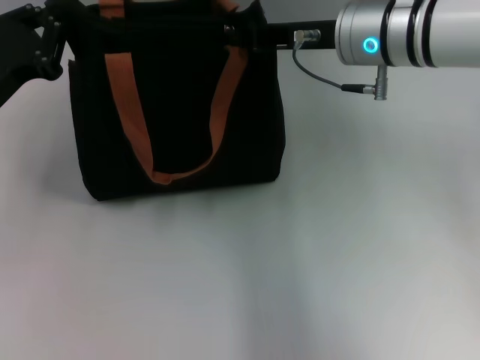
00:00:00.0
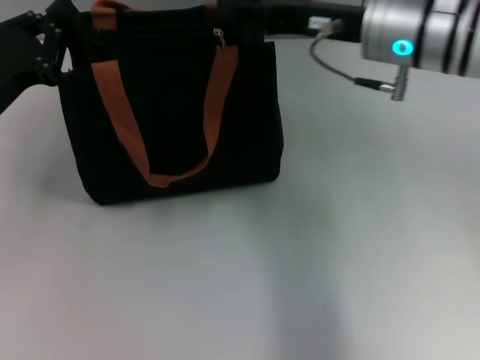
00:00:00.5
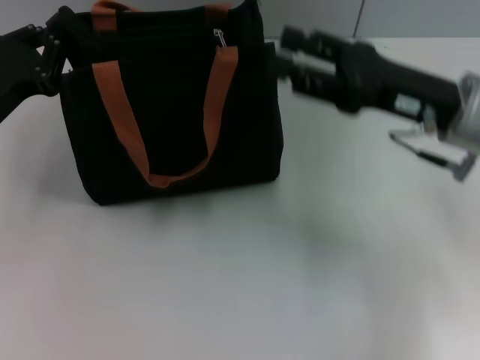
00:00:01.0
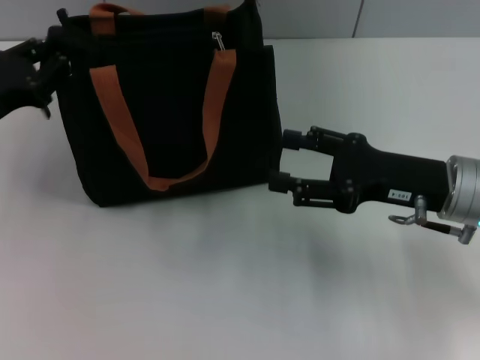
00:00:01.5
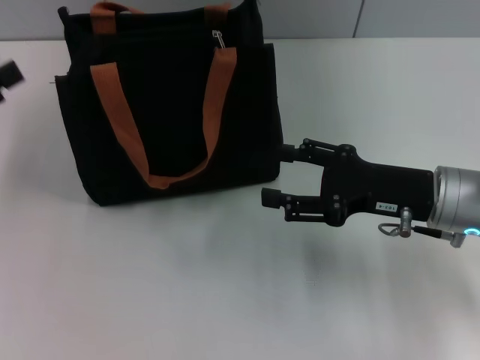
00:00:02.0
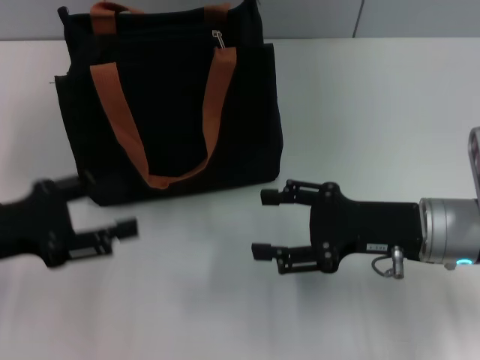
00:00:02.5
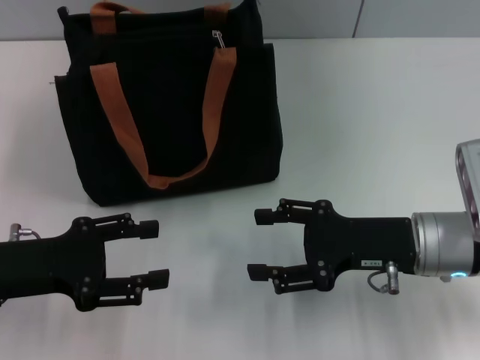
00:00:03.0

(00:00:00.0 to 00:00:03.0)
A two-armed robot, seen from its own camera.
Step, 00:00:00.5 - 00:00:01.5: Grab the zipper with your left hand.
00:00:00.0 - 00:00:01.5: The right gripper travels backward, to the right and downward by roughly 15 cm, and opens its fingers.
00:00:01.5 - 00:00:03.0: The left gripper moves backward, approximately 10 cm, and opens up.

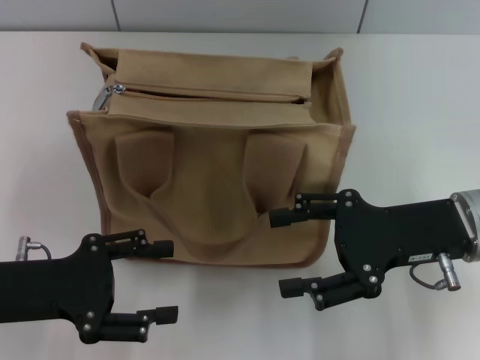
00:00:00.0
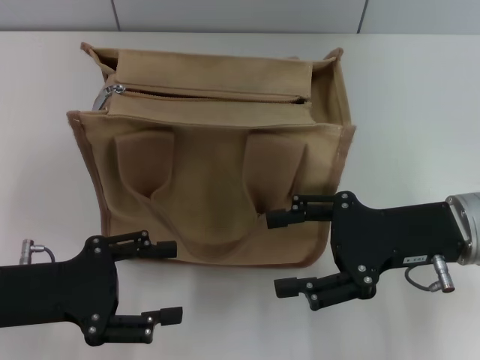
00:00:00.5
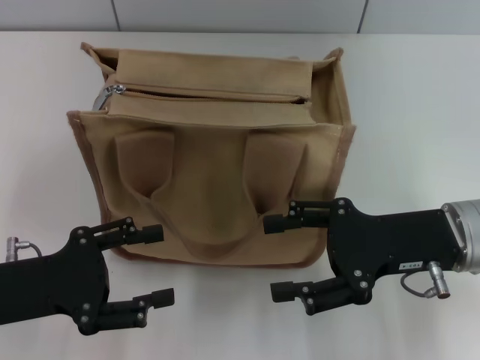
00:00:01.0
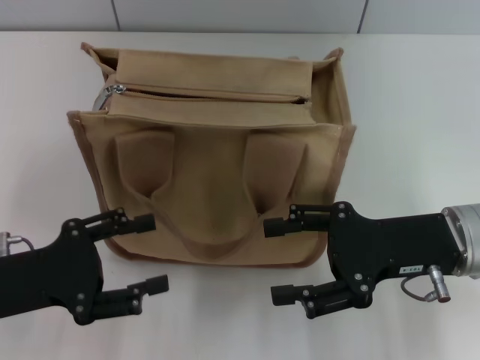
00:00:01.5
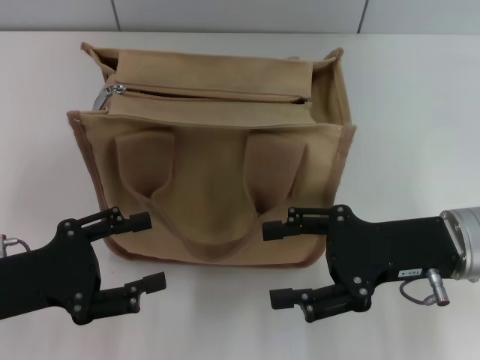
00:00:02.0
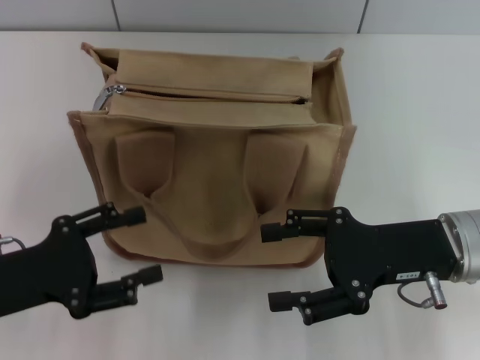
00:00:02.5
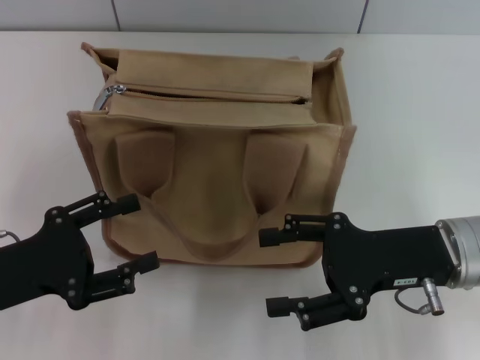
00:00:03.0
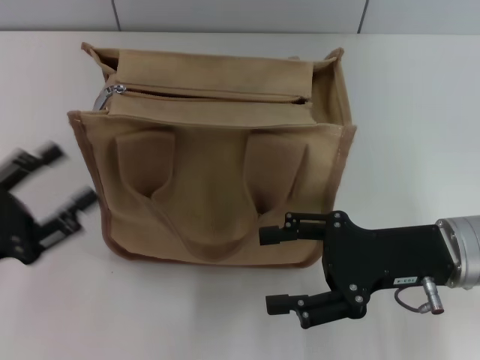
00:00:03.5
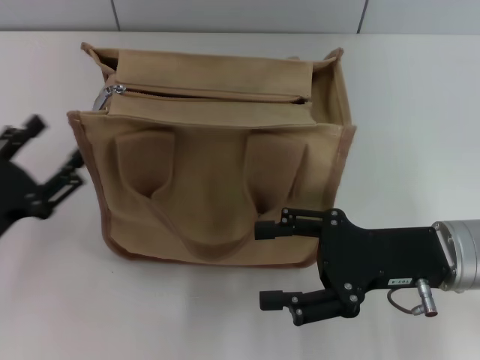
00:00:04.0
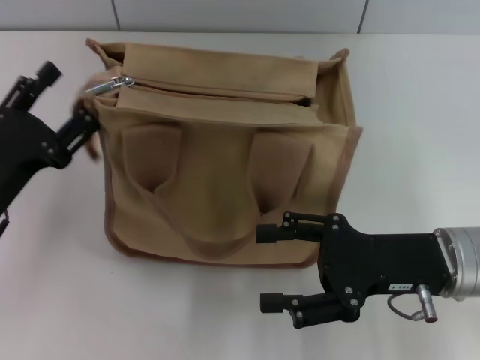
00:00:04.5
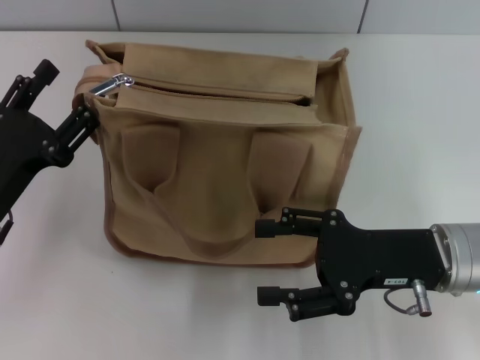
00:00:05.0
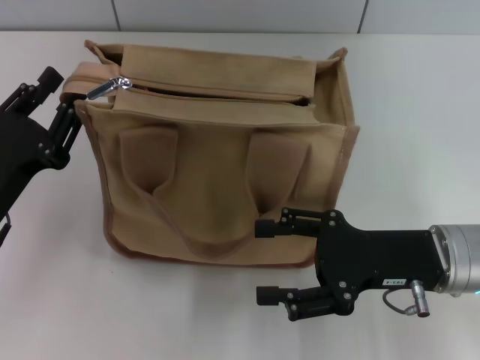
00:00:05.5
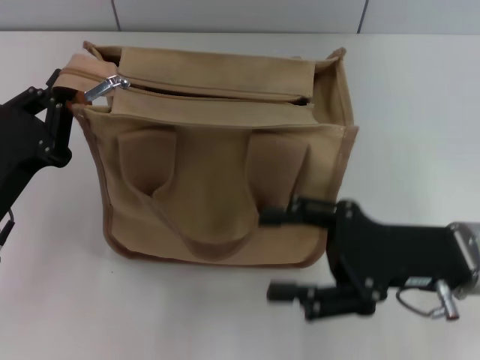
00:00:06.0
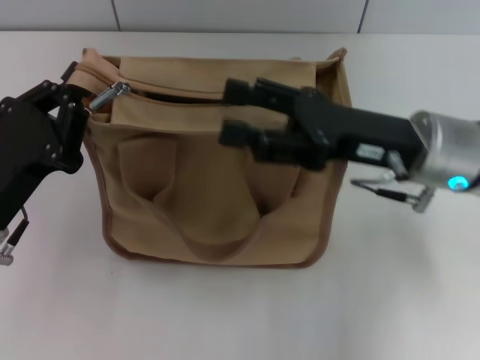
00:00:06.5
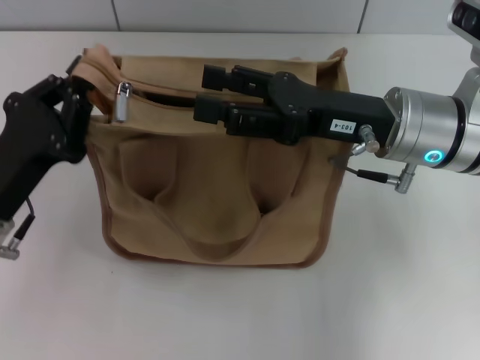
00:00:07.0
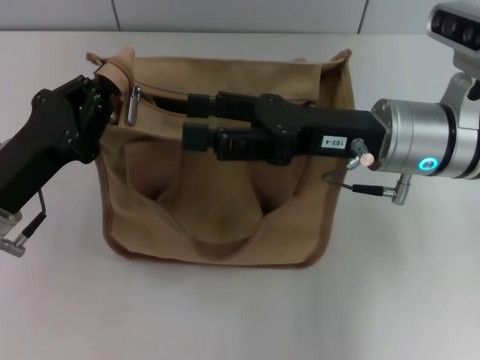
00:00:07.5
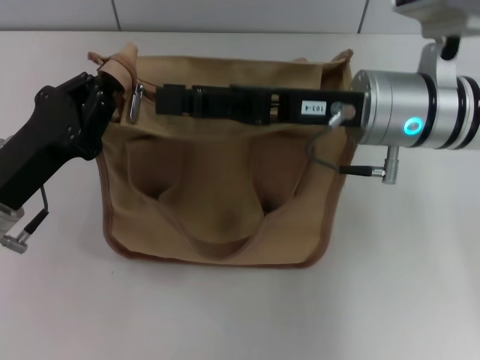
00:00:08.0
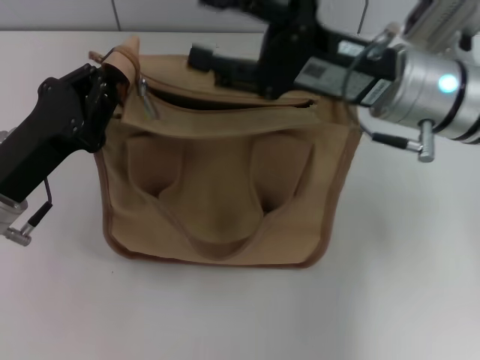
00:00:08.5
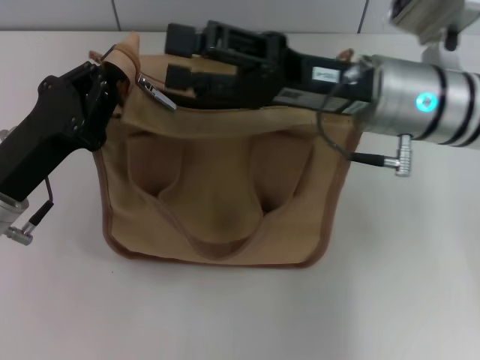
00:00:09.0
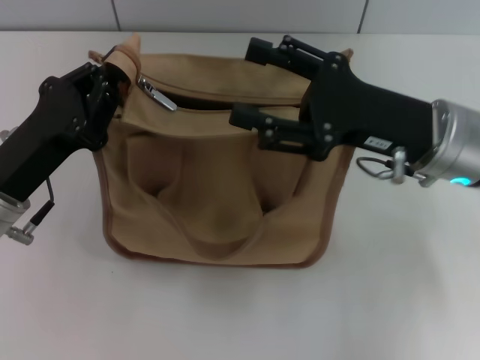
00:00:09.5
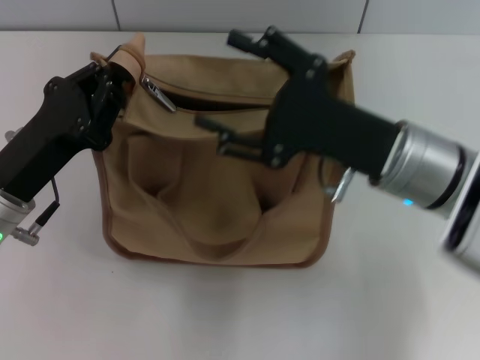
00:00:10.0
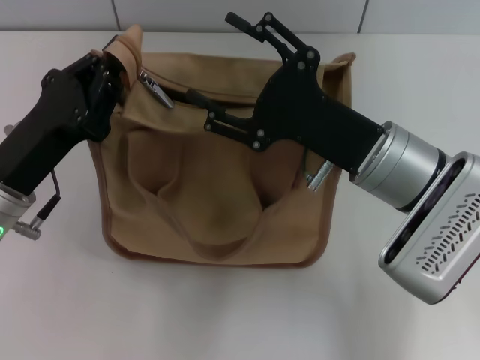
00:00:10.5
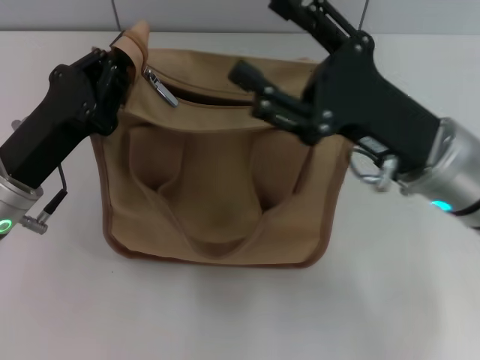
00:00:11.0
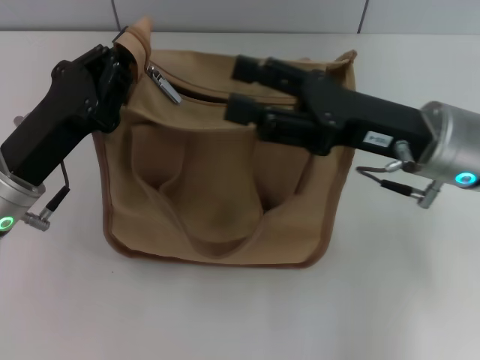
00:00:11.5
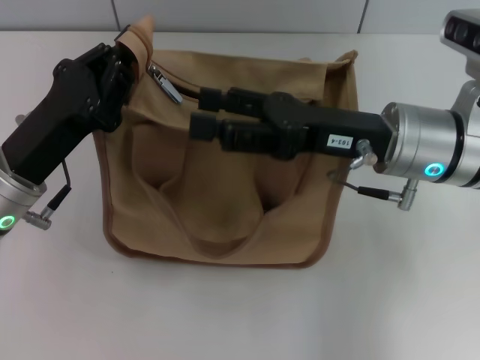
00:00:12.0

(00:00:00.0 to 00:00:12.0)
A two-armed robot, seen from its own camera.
00:00:00.0 - 00:00:02.0: The grippers stay close to where they were, moving slightly.
00:00:04.0 - 00:00:06.0: The left gripper moves some 5 cm, and closes its fingers.
00:00:06.0 - 00:00:08.0: The right gripper goes roughly 15 cm forward, to the left and upward.
00:00:08.0 - 00:00:10.0: The right gripper shifts by approximately 5 cm.

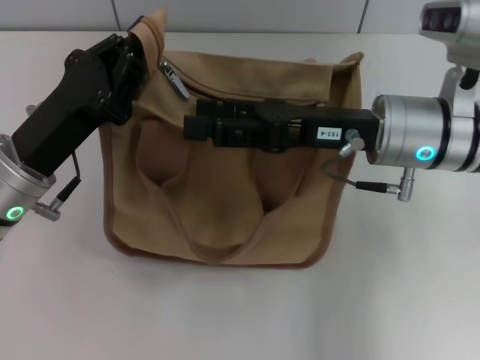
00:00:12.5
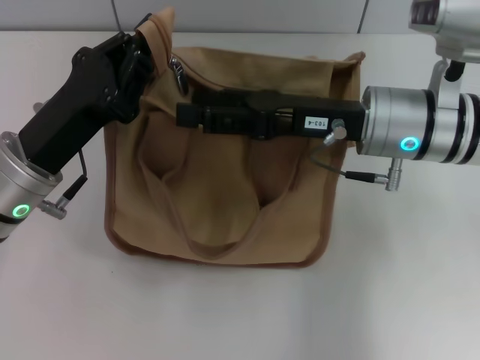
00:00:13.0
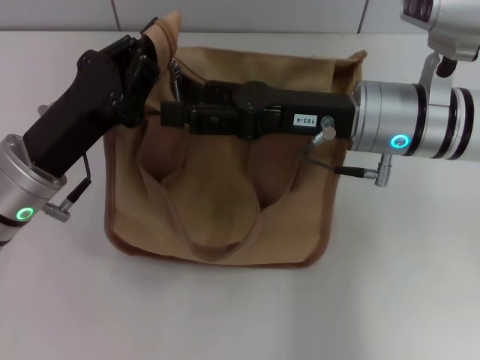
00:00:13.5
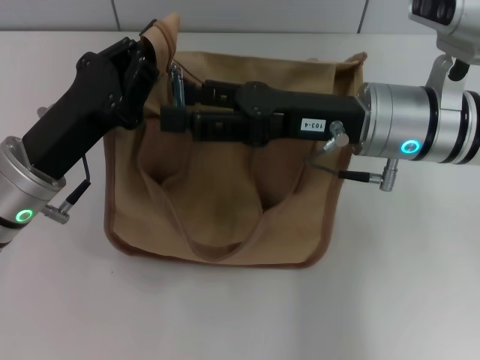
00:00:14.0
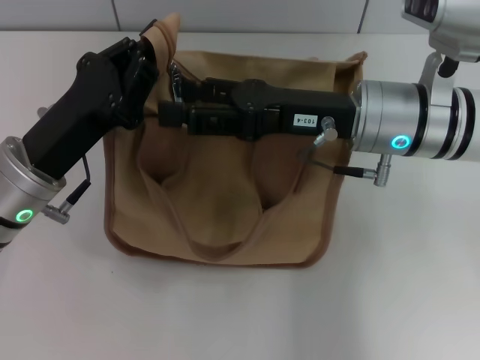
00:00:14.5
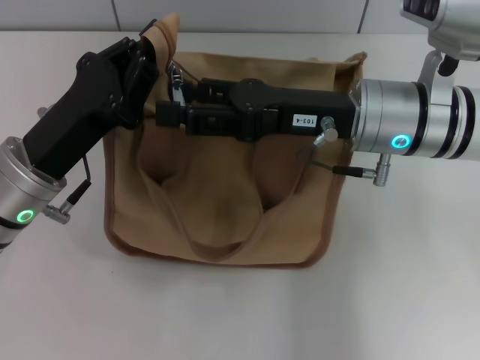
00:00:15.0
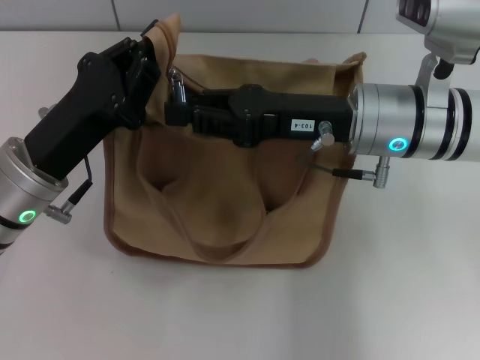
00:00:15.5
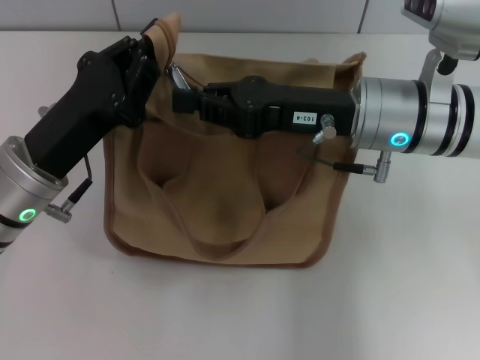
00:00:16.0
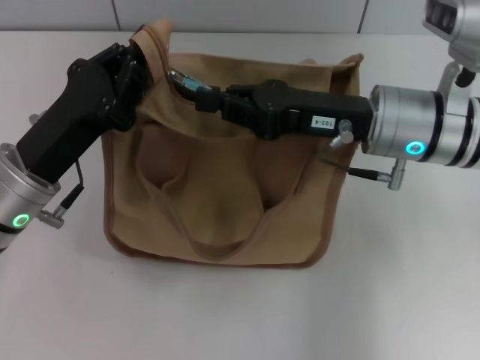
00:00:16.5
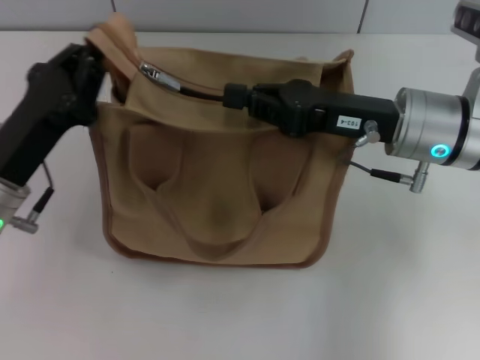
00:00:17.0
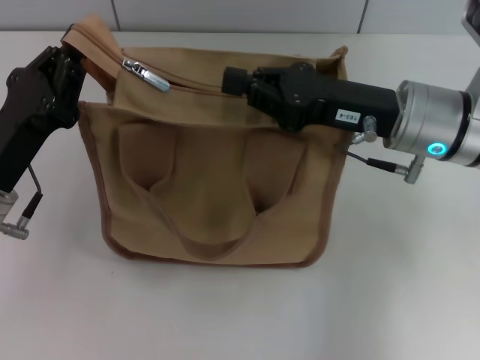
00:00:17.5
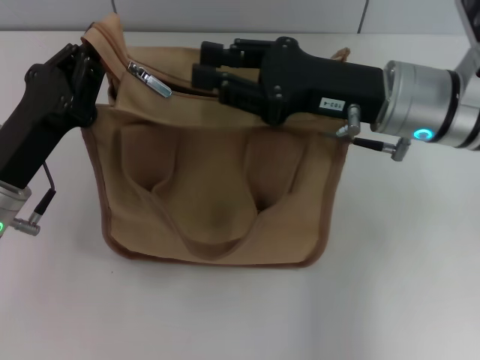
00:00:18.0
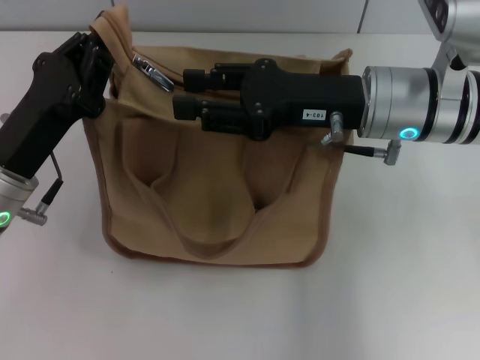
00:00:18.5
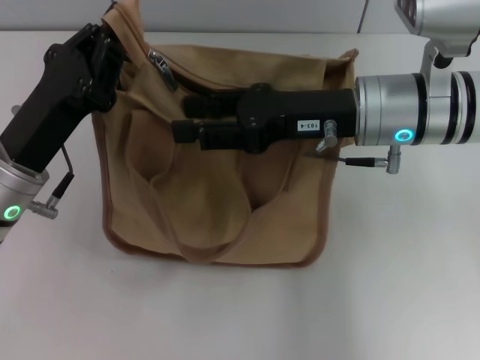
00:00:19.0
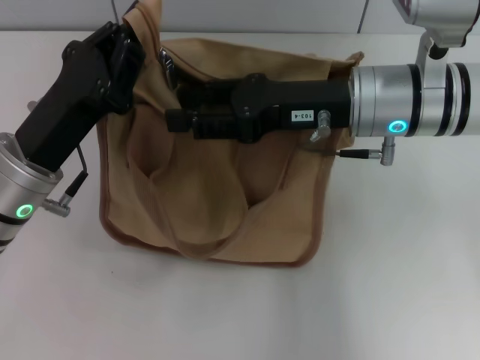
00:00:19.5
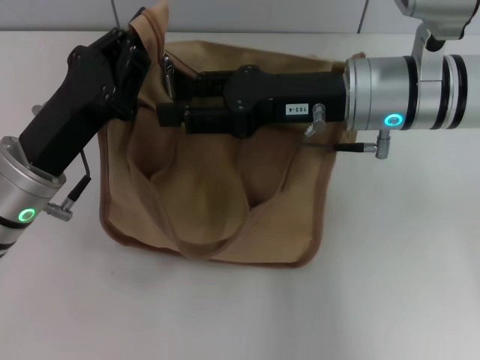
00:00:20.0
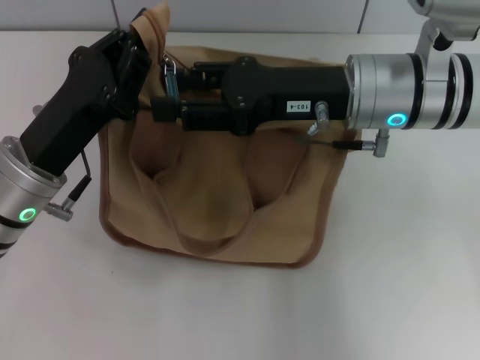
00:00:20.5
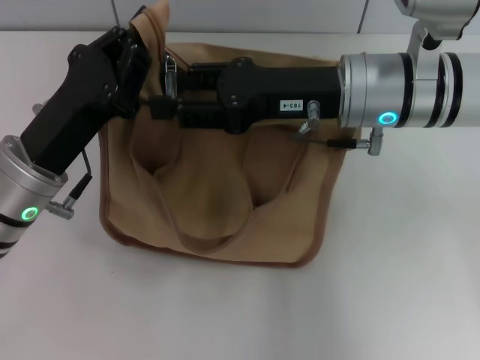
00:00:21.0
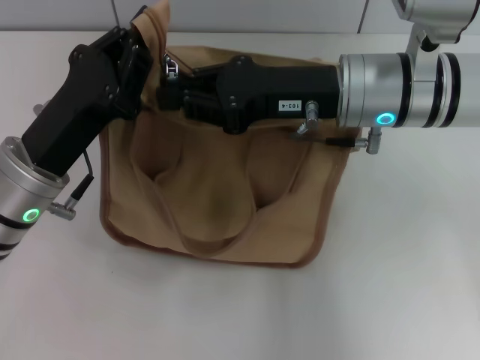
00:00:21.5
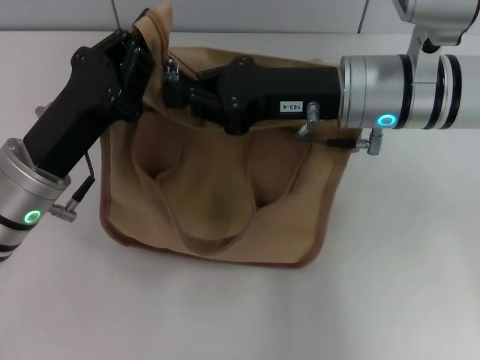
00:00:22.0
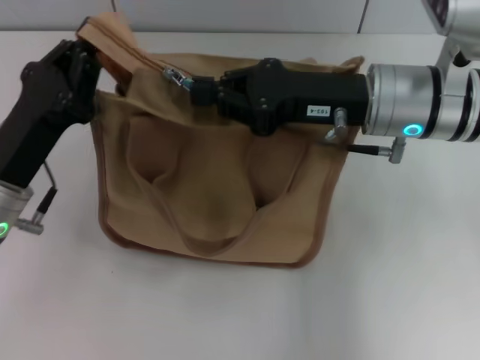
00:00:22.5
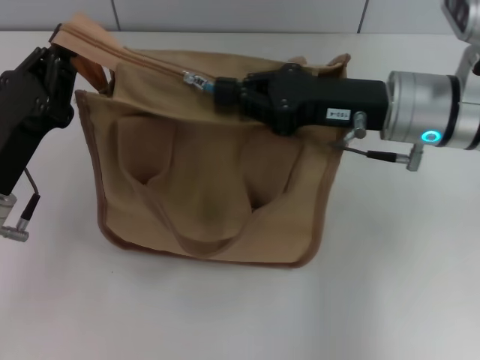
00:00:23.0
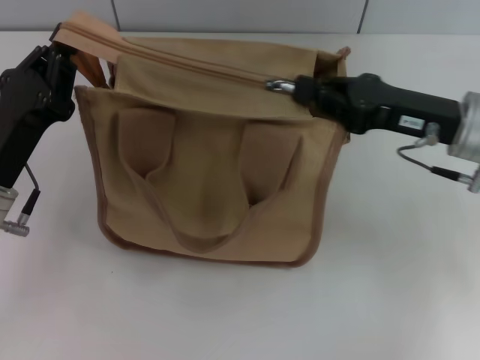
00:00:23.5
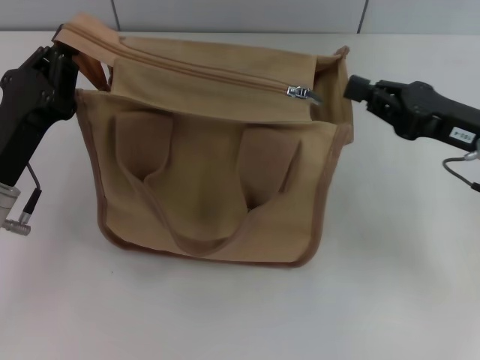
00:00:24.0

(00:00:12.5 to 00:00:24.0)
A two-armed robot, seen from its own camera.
Step, 00:00:12.5 - 00:00:24.0: Pull up the zipper with your right hand.
00:00:12.5 - 00:00:14.5: The grippers move only a little.
00:00:14.5 - 00:00:16.5: The right gripper closes up.
00:00:16.5 - 00:00:18.5: The right gripper opens up.
00:00:20.0 - 00:00:22.0: The right gripper closes.
00:00:22.0 - 00:00:24.0: The right gripper travels to the right by roughly 15 cm.
